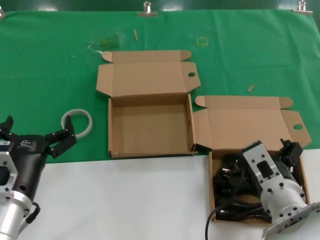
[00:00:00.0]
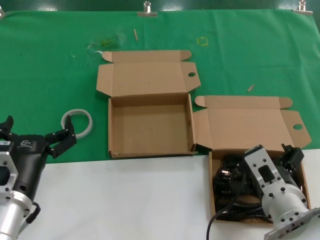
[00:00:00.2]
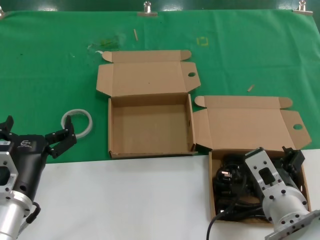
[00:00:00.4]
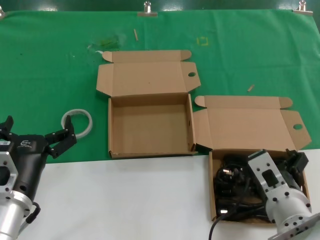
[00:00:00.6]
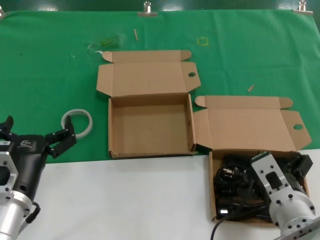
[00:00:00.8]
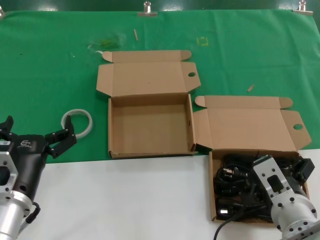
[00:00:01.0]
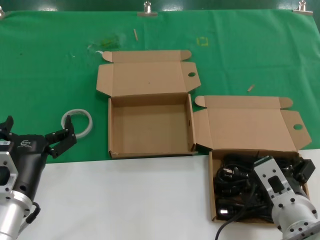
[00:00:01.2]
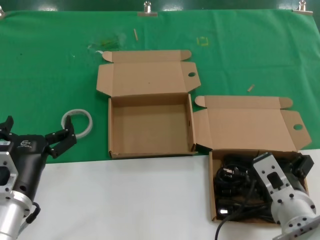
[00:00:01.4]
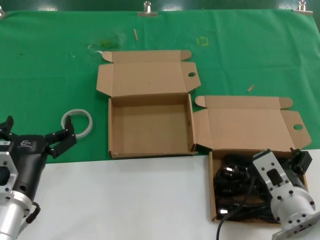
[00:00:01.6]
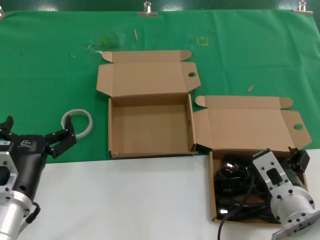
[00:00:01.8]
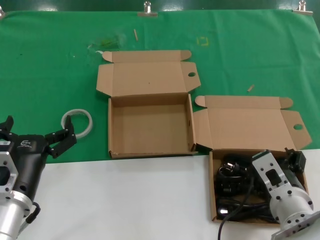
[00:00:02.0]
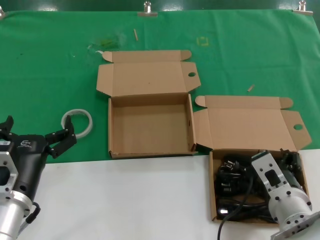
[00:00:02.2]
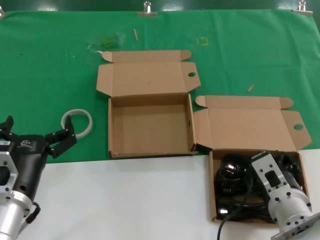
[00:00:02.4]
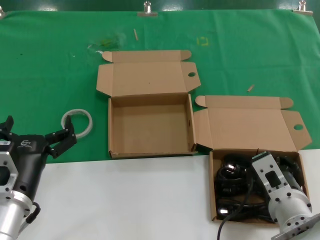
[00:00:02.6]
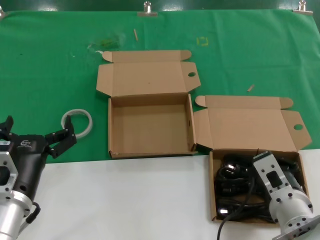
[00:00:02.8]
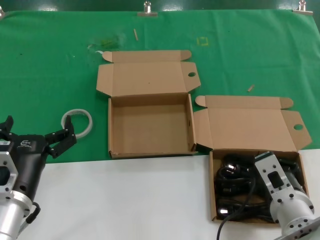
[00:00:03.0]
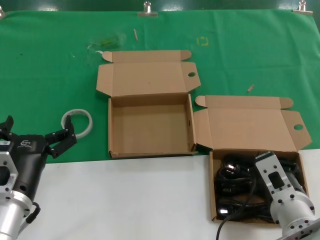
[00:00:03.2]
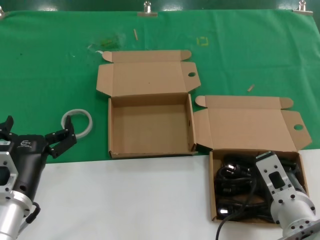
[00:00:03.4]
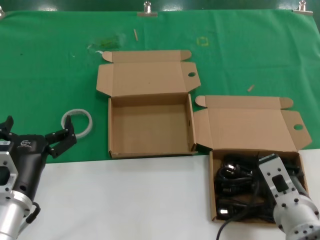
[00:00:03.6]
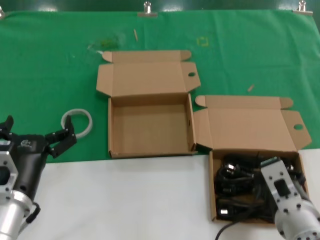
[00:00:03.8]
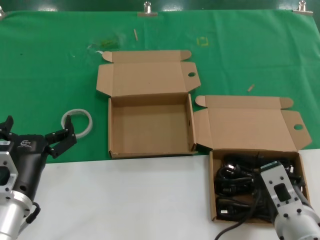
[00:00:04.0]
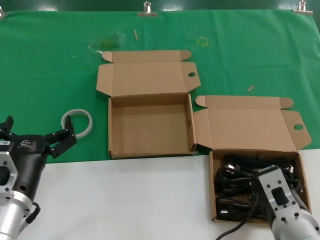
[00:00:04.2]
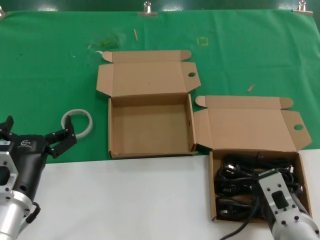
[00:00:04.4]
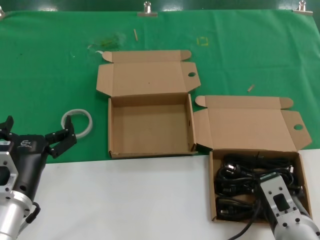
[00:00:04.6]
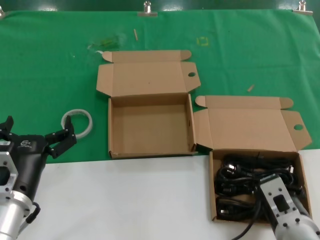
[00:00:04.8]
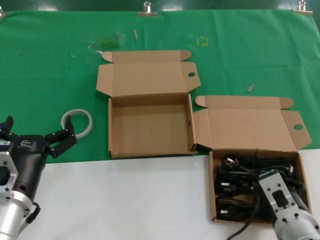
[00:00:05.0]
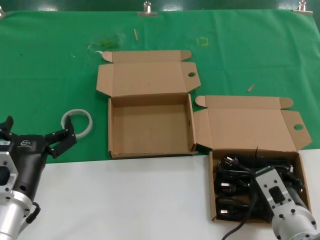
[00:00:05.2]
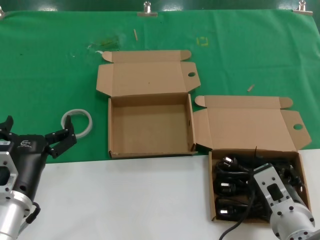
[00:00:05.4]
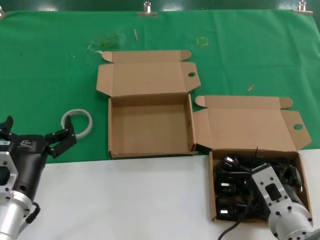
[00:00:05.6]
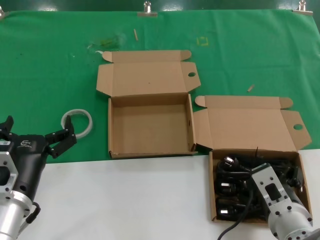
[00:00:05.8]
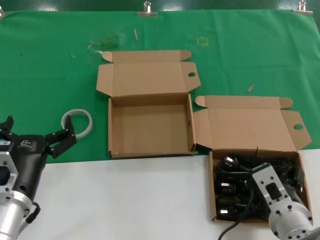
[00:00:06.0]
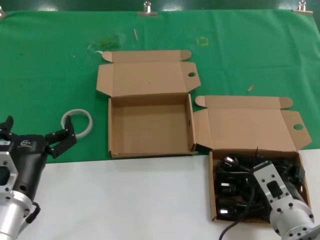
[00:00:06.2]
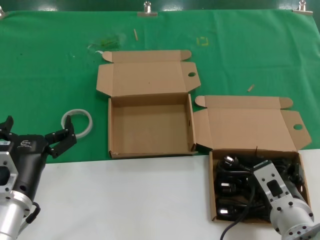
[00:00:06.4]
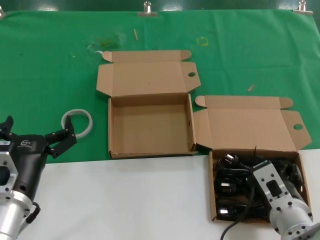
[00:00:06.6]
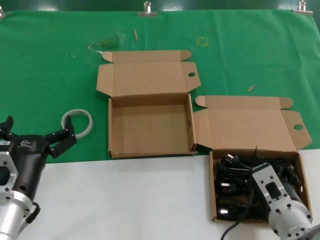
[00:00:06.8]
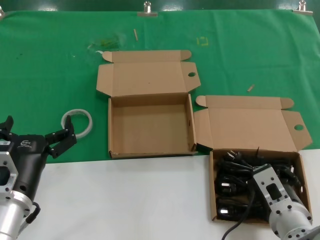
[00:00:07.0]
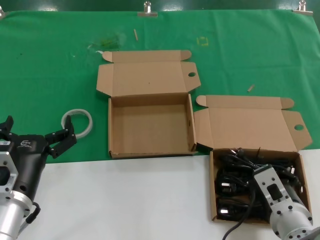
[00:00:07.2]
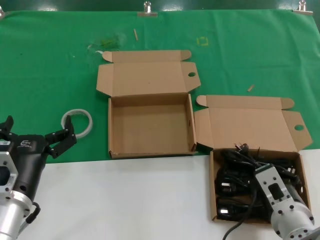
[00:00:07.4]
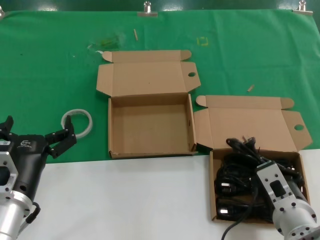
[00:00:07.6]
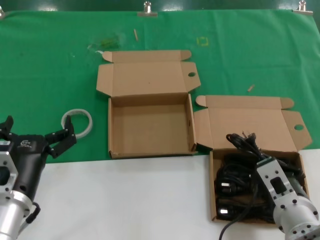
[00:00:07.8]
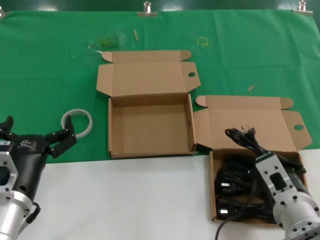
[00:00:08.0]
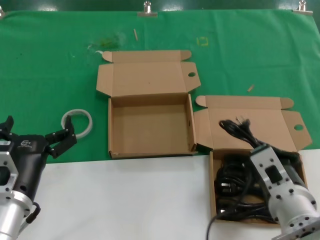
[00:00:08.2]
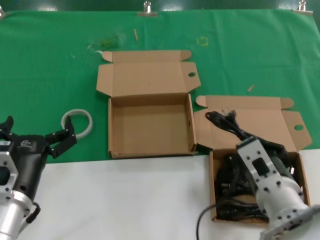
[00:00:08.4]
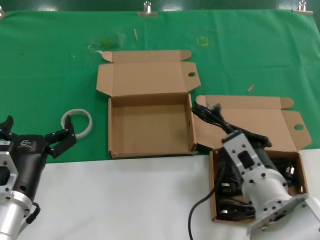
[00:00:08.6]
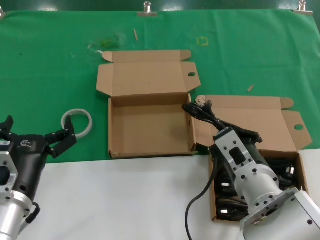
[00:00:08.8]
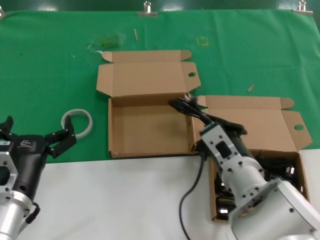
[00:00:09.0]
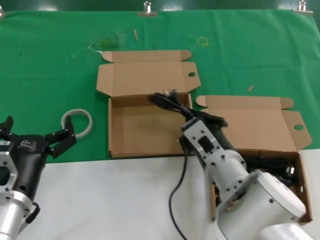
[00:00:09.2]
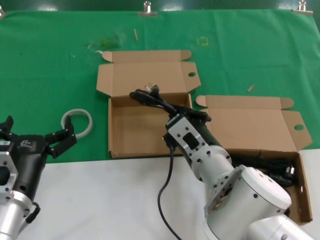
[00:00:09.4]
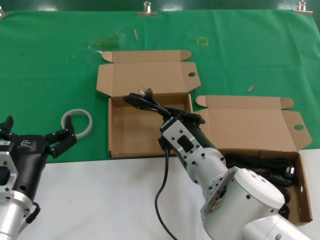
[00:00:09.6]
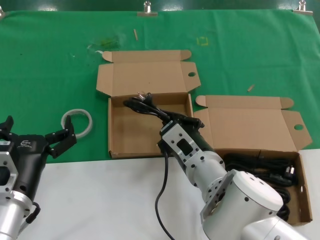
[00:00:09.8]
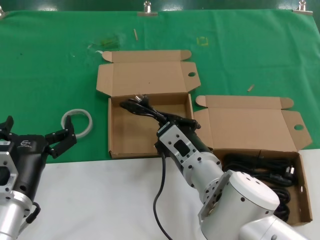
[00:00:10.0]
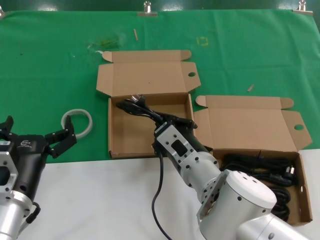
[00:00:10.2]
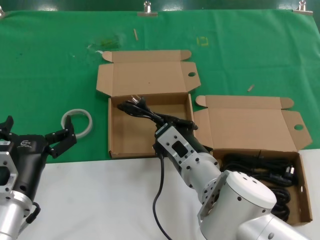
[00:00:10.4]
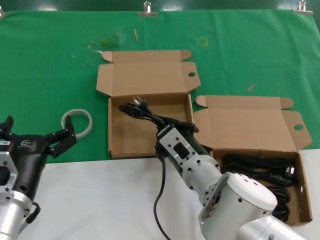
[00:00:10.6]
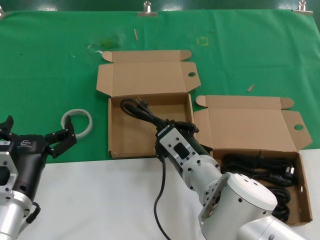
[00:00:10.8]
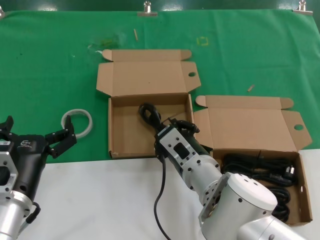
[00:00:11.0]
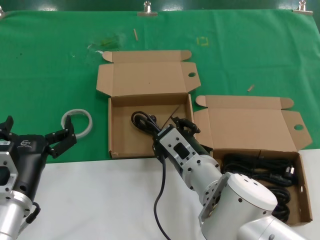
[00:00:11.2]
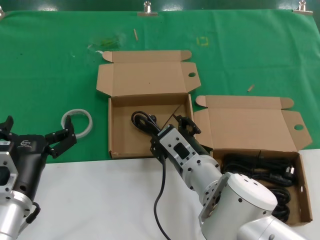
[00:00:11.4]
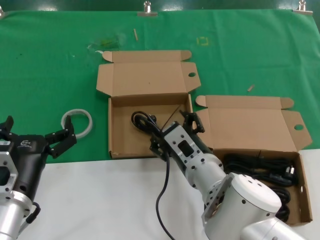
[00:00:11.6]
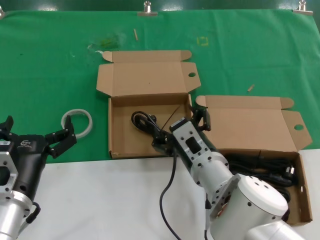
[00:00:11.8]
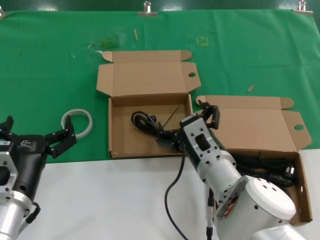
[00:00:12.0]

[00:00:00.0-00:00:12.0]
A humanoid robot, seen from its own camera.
Task of the whole recording: take the parts from the box containing them and put them into an empty box.
Step, 00:00:00.0 to 00:00:07.0: Grasp the data cable.
Step, 00:00:07.4 to 00:00:10.8: Place the data cable in the another box.
00:00:00.0 to 00:00:01.6: There are only small adjustments of the hands.
00:00:01.6 to 00:00:03.0: Both hands stay put.
00:00:03.0 to 00:00:07.6: The hands move only a little.
00:00:07.6 to 00:00:09.0: The right hand shifts some 10 cm to the left and upward.
00:00:09.0 to 00:00:10.4: The right hand shifts some 5 cm to the left.
00:00:10.4 to 00:00:12.0: The hands make only small movements.

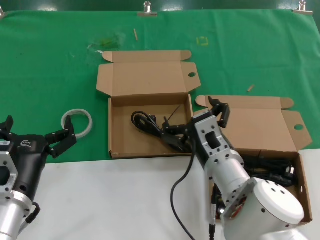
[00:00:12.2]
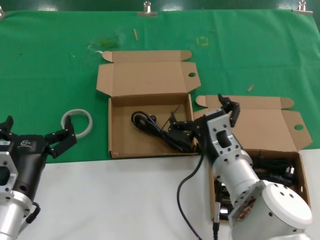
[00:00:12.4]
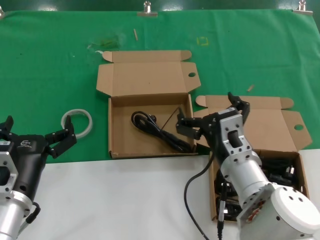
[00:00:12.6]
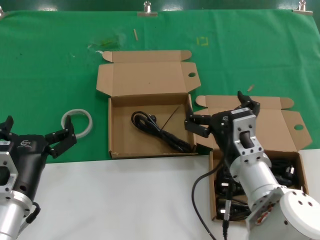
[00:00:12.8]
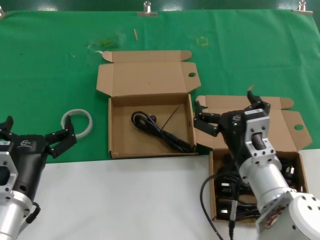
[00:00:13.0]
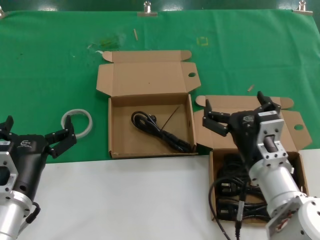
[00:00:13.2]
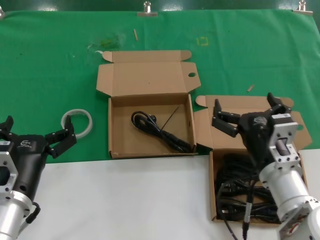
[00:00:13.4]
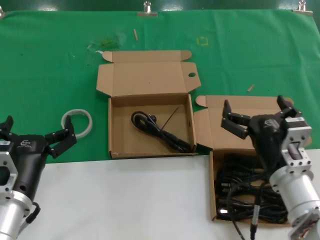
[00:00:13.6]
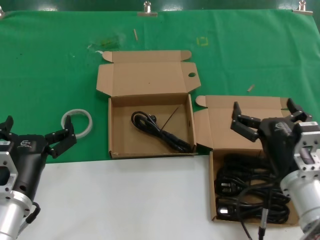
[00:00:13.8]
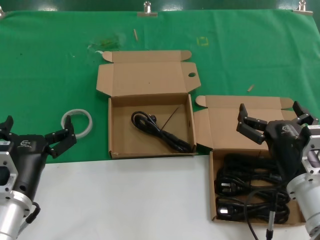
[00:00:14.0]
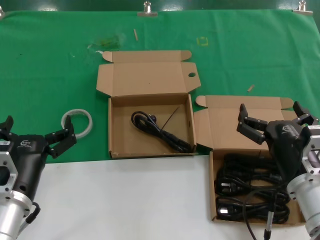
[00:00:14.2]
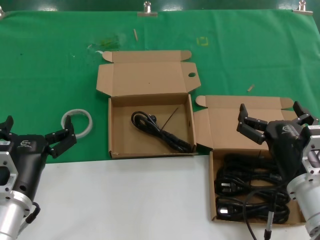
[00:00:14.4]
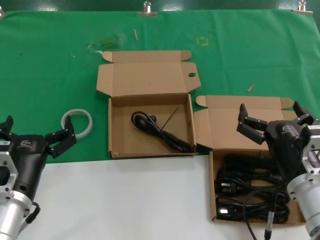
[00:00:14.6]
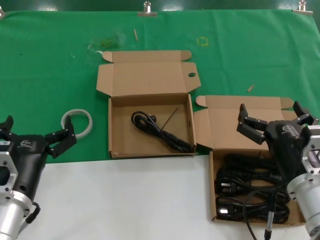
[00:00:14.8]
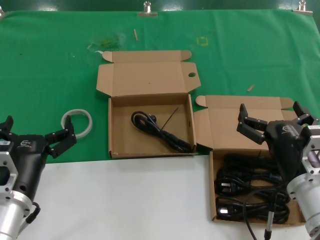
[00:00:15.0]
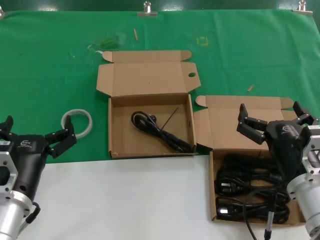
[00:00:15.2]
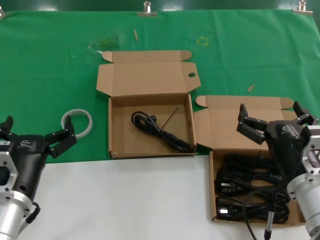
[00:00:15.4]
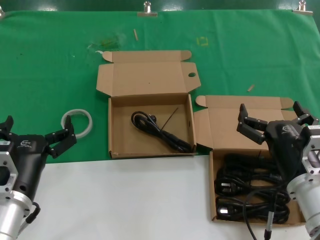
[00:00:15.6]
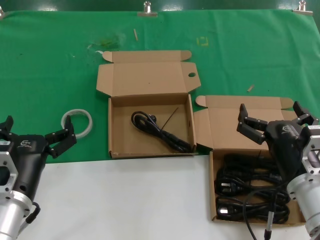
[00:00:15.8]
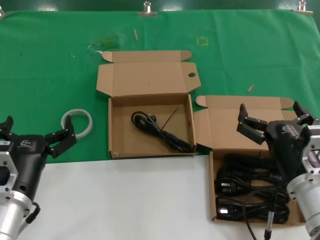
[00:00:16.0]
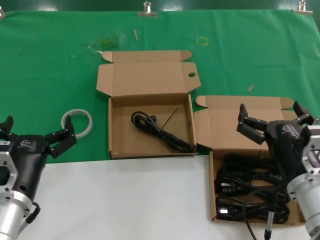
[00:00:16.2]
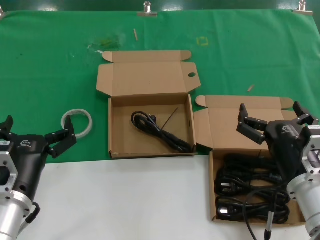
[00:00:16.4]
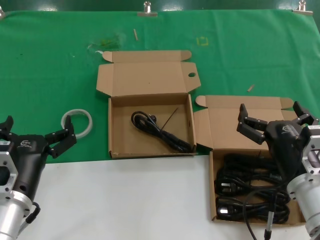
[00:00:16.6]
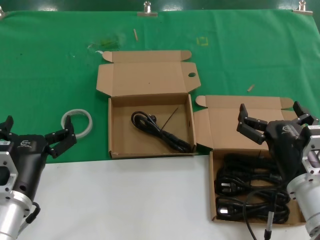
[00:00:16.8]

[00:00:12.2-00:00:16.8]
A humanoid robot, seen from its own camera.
Task of the whole recording: take the parts from the box containing them and put them into an empty box.
00:00:12.2 to 00:00:13.8: The right hand shifts roughly 10 cm to the right.
00:00:13.8 to 00:00:15.2: The hands stay close to where they were, moving slightly.
00:00:15.2 to 00:00:16.8: Both hands stay put.
